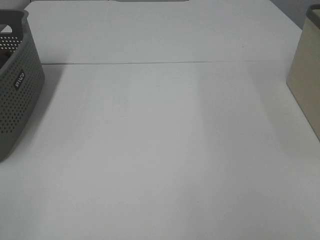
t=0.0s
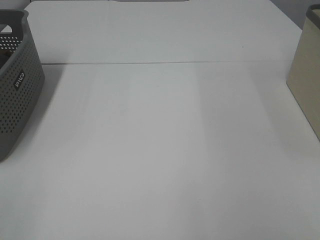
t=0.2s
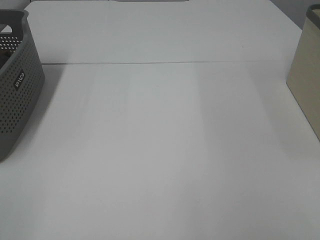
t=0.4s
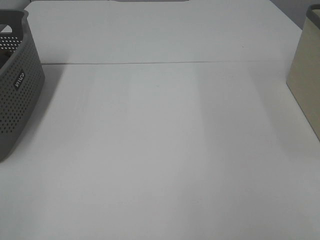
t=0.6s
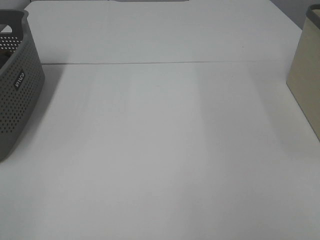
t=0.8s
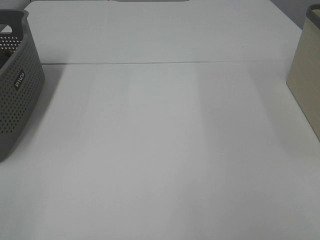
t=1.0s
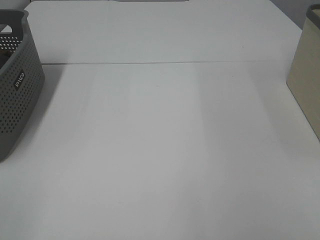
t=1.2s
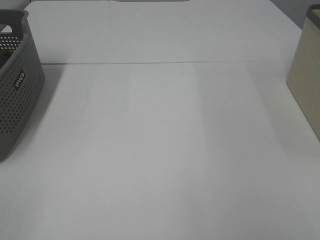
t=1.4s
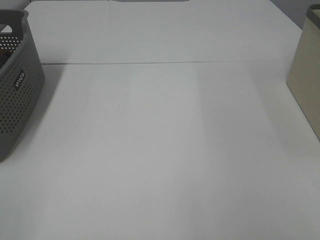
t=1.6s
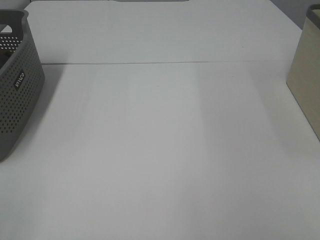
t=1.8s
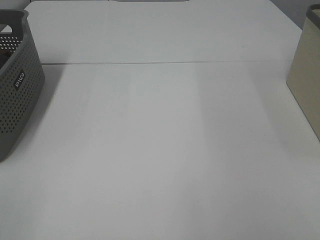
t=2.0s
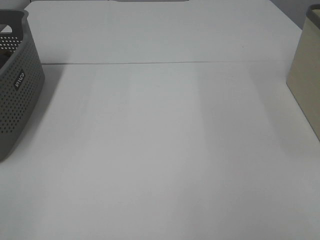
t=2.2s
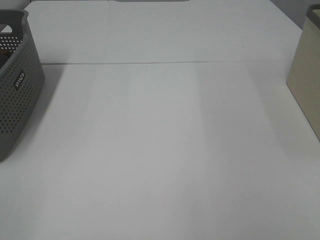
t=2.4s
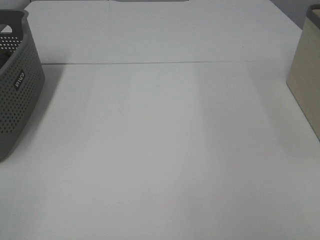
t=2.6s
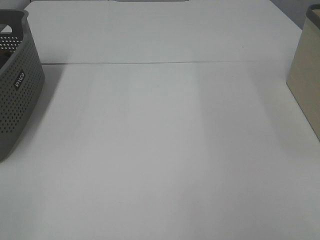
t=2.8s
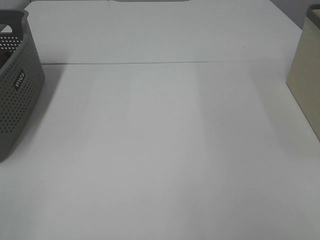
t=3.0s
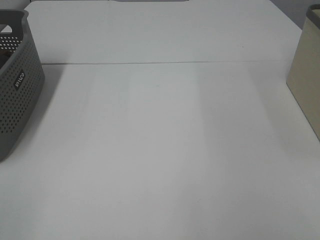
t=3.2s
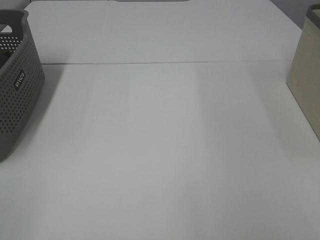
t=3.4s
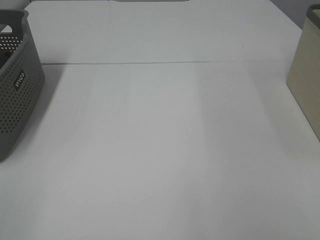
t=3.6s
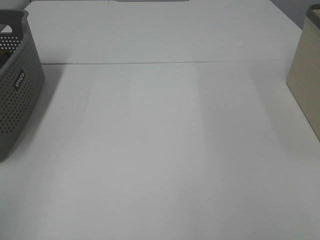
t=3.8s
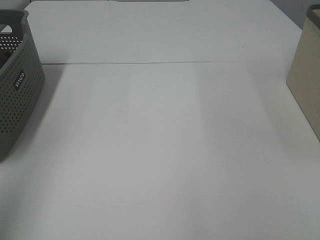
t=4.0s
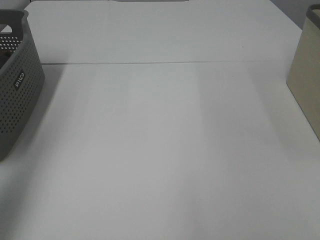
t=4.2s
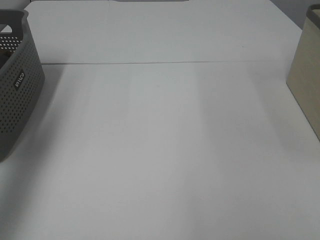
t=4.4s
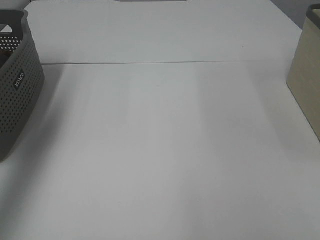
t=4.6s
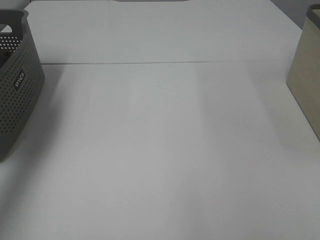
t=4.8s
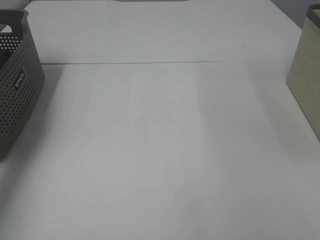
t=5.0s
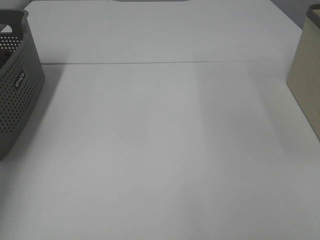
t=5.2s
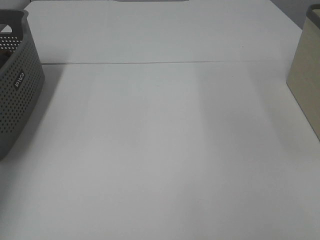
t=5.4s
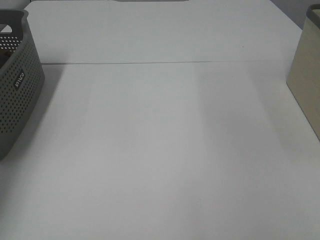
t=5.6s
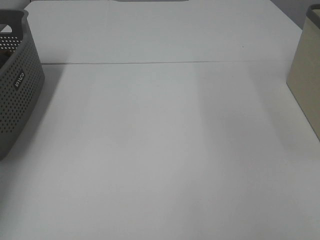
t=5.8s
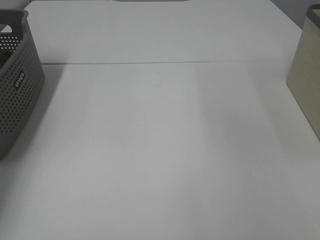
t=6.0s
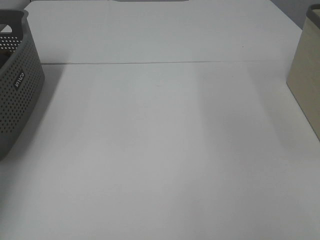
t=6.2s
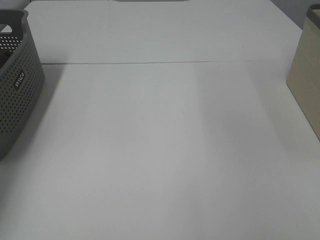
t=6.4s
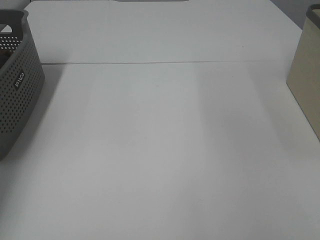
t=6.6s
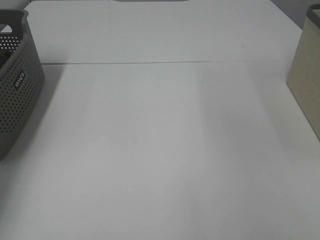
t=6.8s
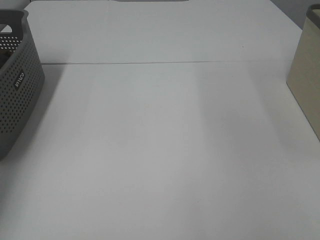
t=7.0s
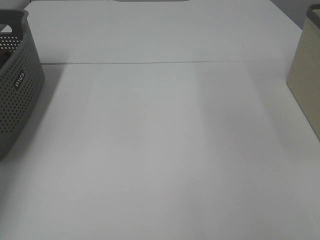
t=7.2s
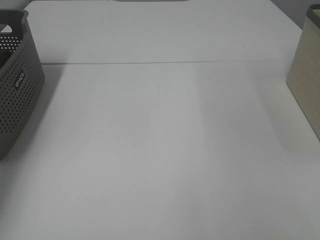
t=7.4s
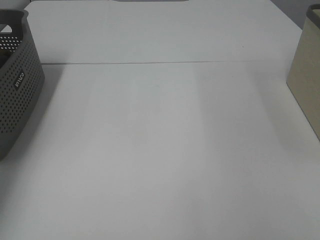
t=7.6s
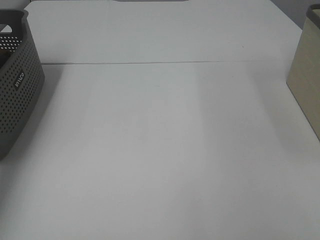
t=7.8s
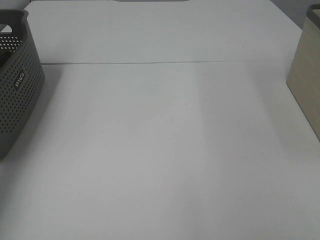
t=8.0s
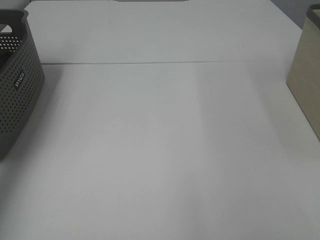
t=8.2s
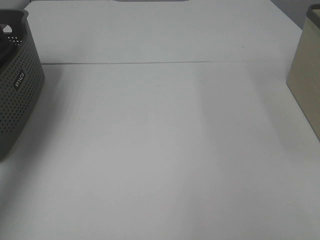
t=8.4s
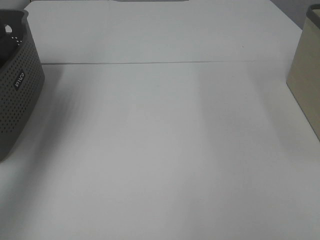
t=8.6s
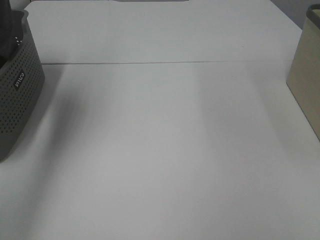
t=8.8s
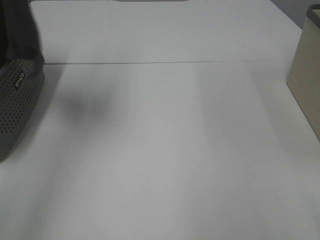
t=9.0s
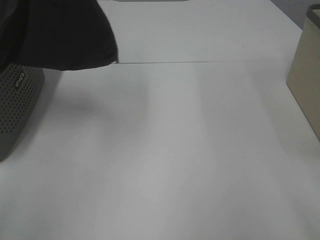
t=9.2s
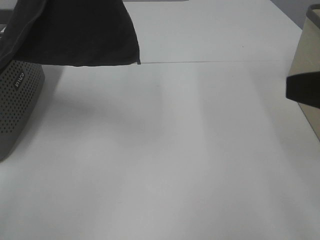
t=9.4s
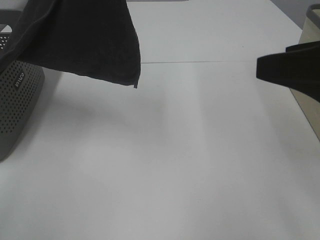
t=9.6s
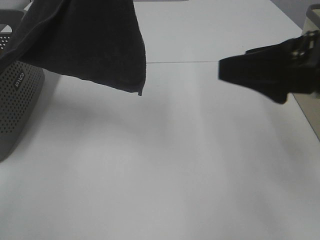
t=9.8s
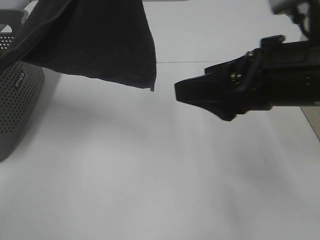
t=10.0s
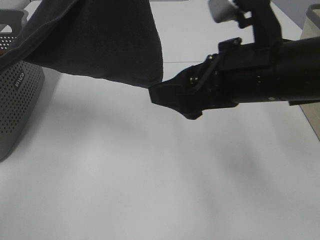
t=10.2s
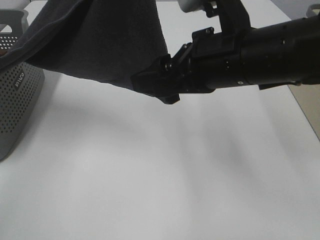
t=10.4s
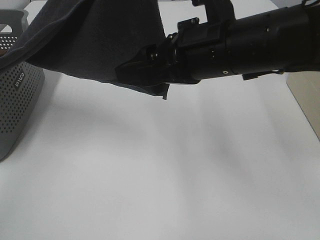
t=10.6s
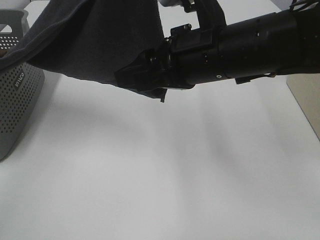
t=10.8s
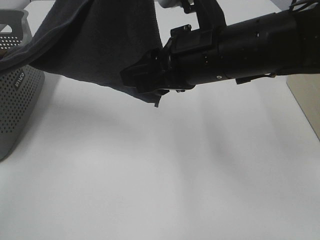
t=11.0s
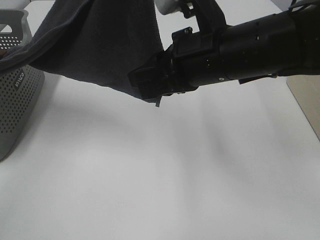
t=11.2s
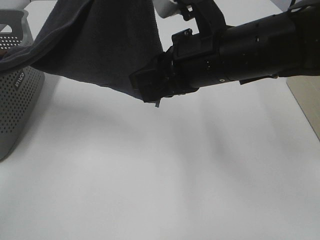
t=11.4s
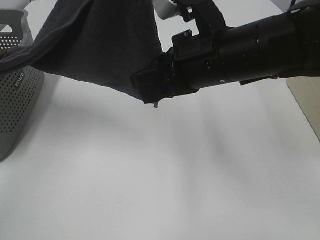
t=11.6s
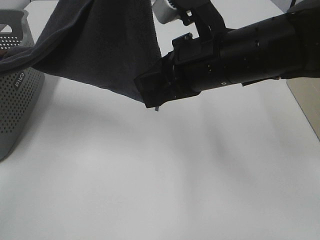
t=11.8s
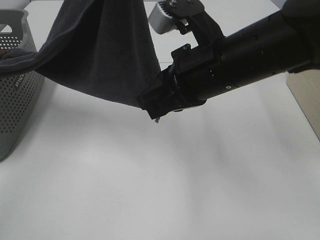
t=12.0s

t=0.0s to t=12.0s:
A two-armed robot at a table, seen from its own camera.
Task of the whole recording: Remove the towel and place it.
t=0.0s to t=3.0s: Neither gripper changes place.
t=3.0s to t=4.4s: The left gripper travels forward and upward by roughly 30 cm.
t=4.4s to t=6.0s: The left gripper is displaced downward and forward by some 25 cm.
t=7.6s to t=9.0s: The right gripper travels forward by about 5 cm, while the left gripper goes roughly 30 cm upward, to the right and backward.
t=9.0s to t=10.4s: The right gripper travels forward and to the left by about 25 cm; the left gripper is displaced to the right and backward by approximately 15 cm.
t=10.4s to t=12.0s: The right gripper closes.

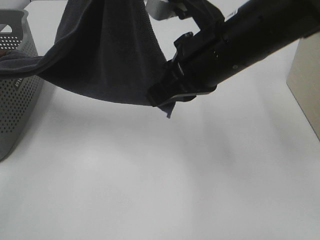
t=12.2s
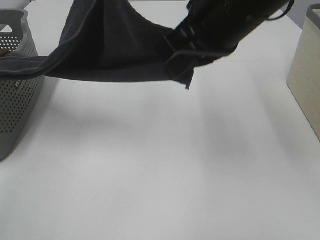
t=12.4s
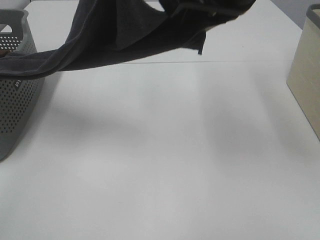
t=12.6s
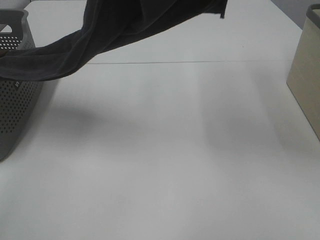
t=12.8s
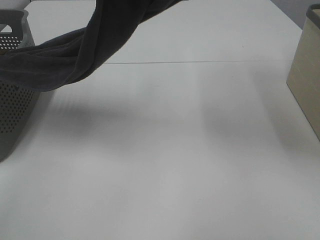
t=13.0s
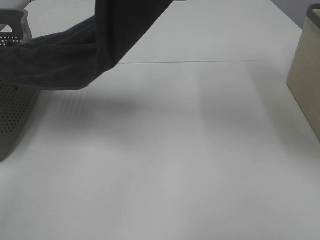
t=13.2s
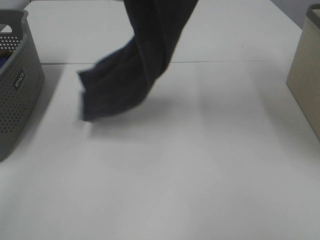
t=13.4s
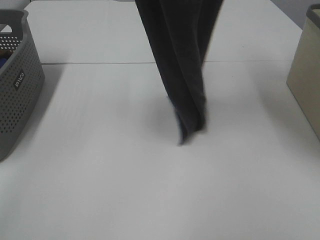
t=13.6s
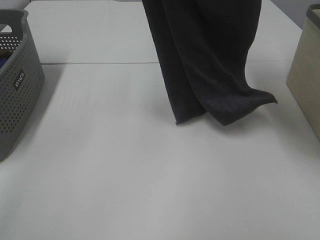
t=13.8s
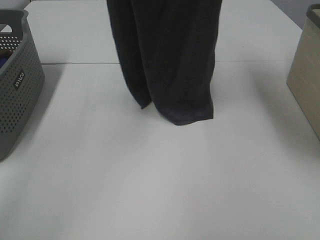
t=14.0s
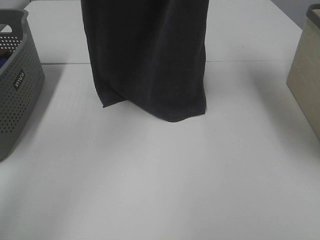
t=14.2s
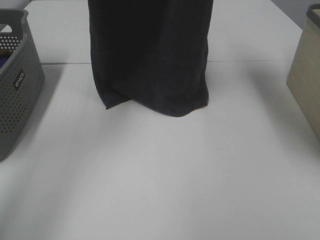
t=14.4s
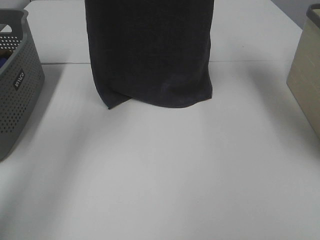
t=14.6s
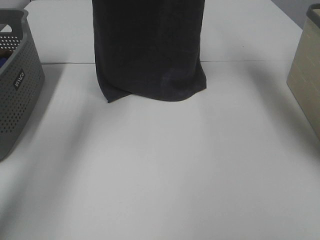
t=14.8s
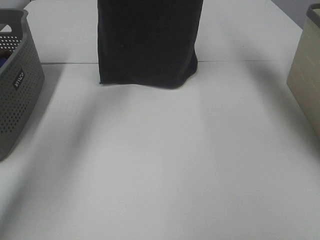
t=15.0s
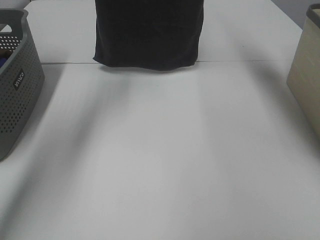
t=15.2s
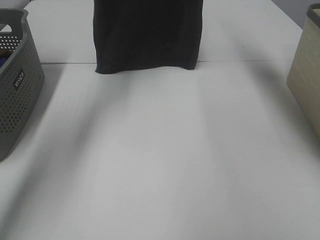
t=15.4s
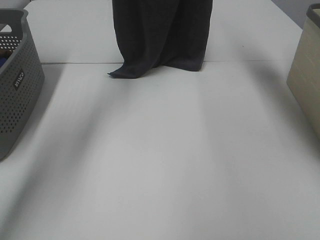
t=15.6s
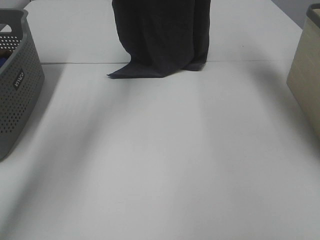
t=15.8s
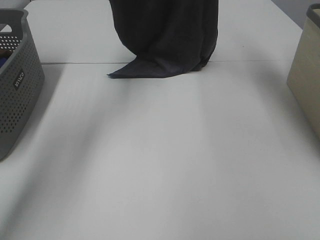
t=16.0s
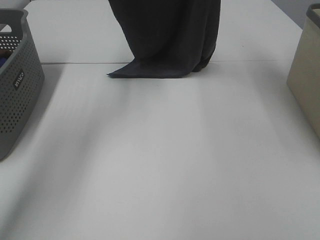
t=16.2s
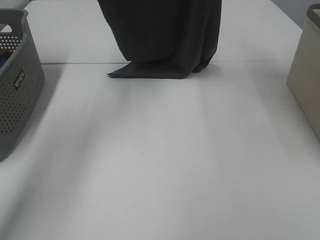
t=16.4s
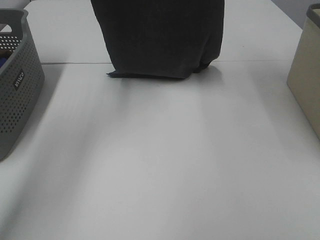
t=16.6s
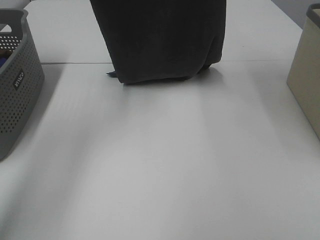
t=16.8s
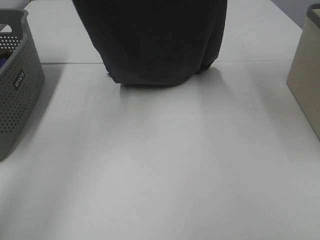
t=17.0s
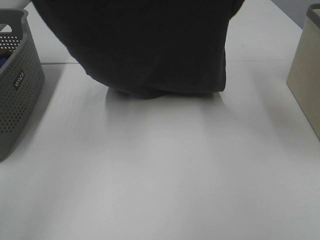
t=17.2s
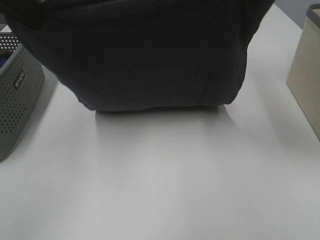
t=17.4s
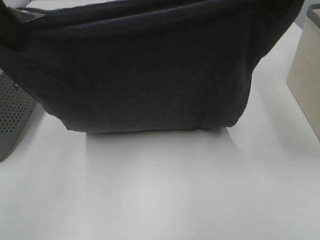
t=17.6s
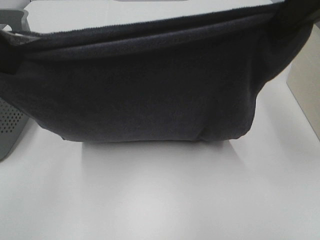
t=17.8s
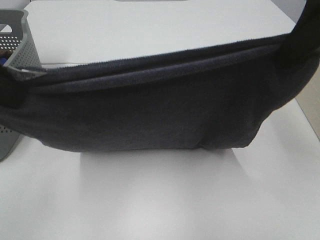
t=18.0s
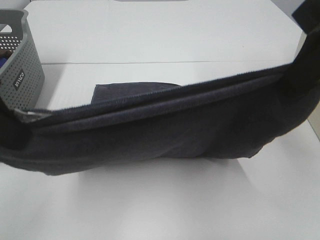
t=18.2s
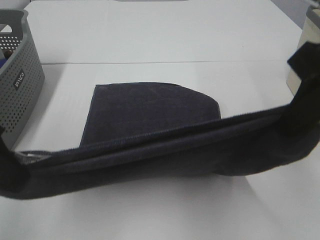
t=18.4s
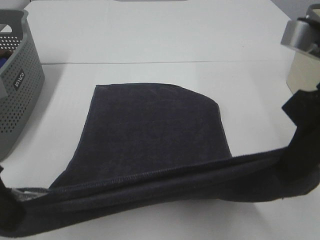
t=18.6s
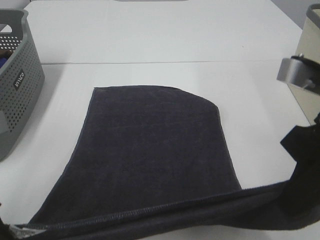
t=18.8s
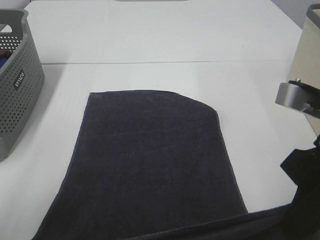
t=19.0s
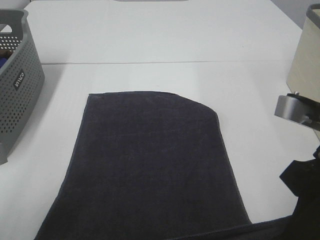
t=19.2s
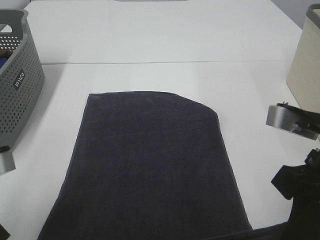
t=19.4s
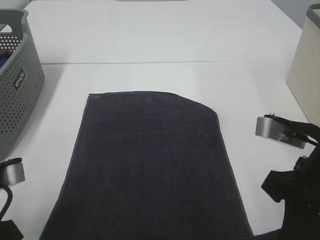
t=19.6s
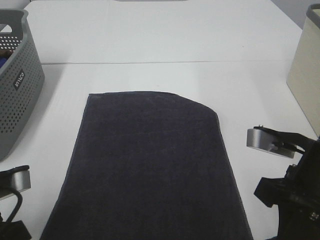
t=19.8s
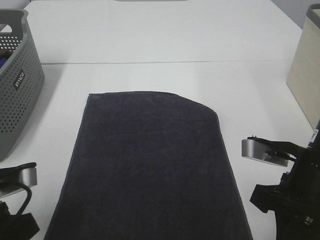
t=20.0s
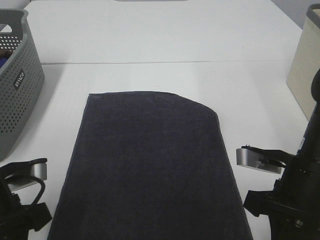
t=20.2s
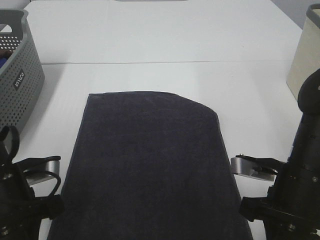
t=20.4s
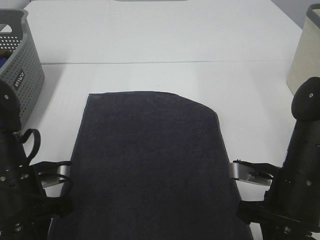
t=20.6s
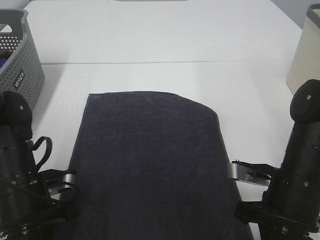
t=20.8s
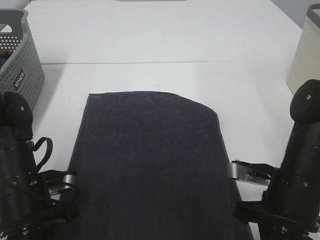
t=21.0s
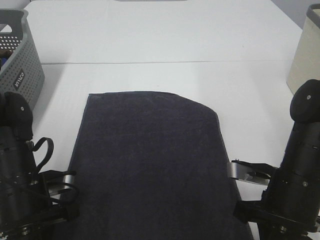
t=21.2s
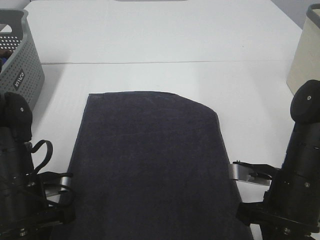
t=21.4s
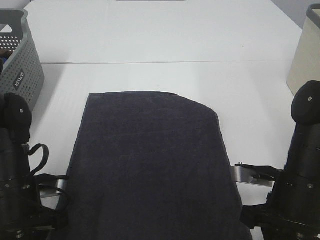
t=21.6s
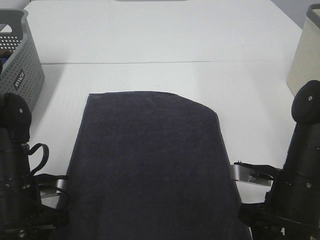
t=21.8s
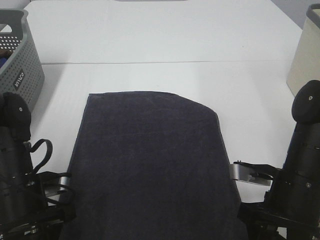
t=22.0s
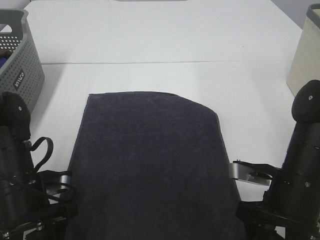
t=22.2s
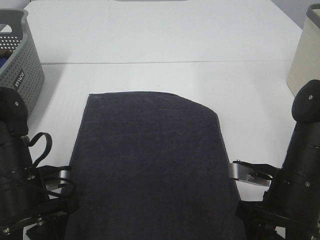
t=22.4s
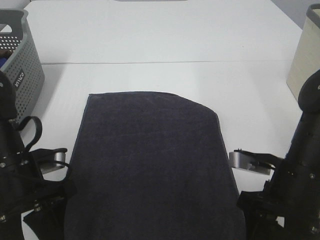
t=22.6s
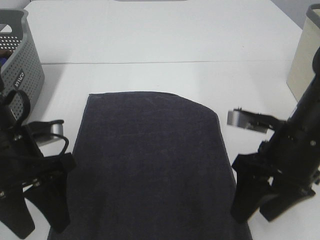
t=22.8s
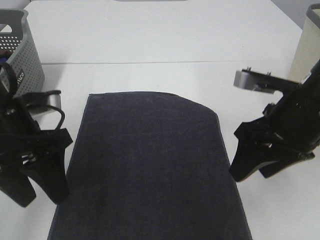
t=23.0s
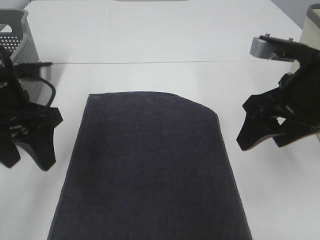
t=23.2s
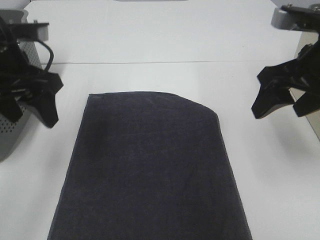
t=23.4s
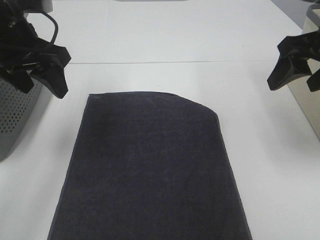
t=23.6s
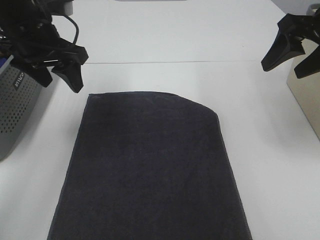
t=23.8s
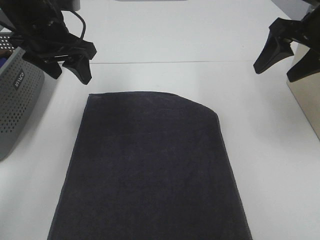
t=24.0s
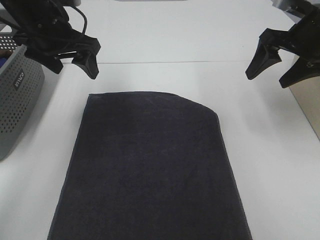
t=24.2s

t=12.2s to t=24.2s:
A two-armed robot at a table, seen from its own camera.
Task of the whole recording: Remove the towel and place it.
Step, t=13.4s to t=17.8s: Left hand: spread the grey towel flat on the table.
Step, t=13.4s to t=17.8s: Right hand: spread the grey towel flat on the table.
t=12.2s to t=13.8s: The right gripper moves upward, about 25 cm; the left gripper heads forward, covering some 5 cm.
t=13.8s to t=15.2s: The two grippers go some 15 cm forward.
t=15.2s to t=16.6s: The two grippers go approximately 5 cm backward.
t=16.6s to t=18.2s: The right gripper heads backward and downward, covering about 25 cm. Meanwhile the left gripper moves backward, roughly 30 cm.
t=18.2s to t=19.8s: The grippers both shift downward by approximately 15 cm.
t=19.8s to t=21.2s: The right gripper is displaced downward by approximately 10 cm. The left gripper is displaced downward and forward by roughly 10 cm.
t=21.2s to t=22.6s: The right gripper opens up. Meanwhile the left gripper opens up.
t=22.6s to t=24.2s: The left gripper heads forward and upward, covering some 20 cm. The right gripper heads forward, upward and to the right, covering roughly 25 cm.
